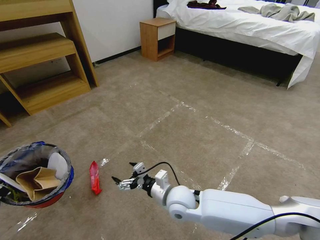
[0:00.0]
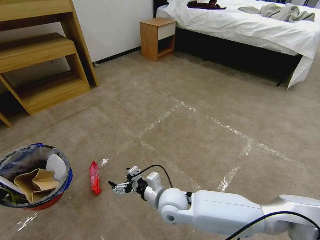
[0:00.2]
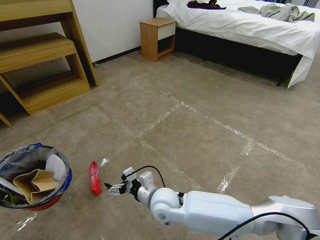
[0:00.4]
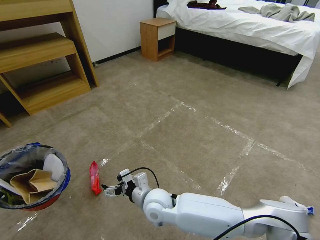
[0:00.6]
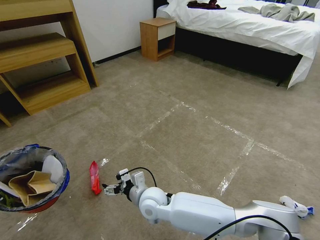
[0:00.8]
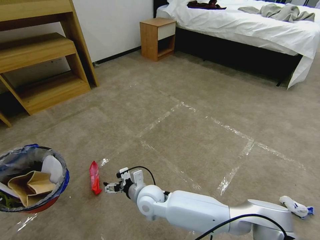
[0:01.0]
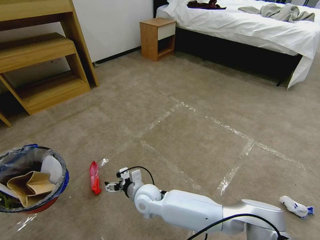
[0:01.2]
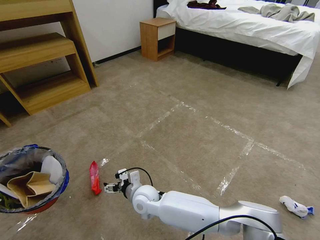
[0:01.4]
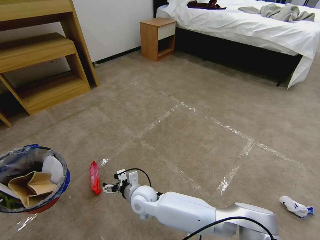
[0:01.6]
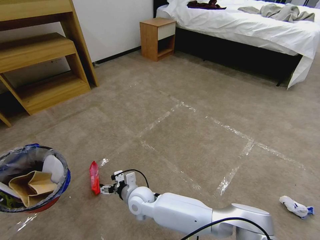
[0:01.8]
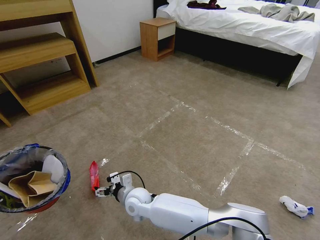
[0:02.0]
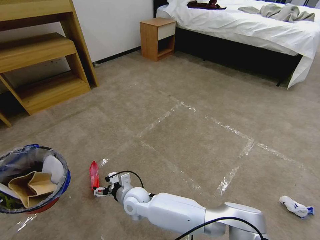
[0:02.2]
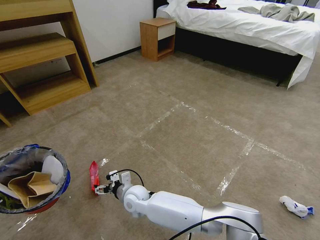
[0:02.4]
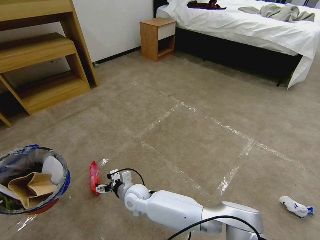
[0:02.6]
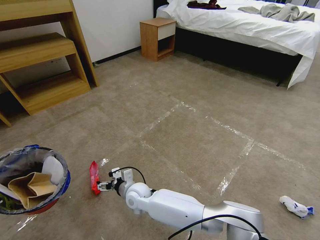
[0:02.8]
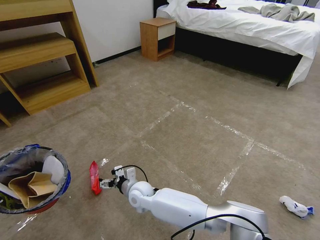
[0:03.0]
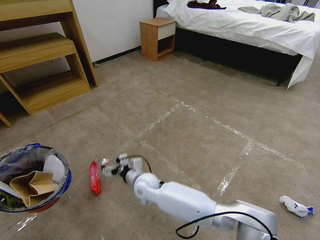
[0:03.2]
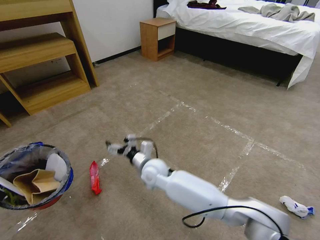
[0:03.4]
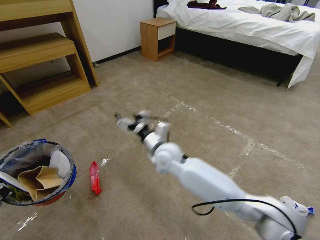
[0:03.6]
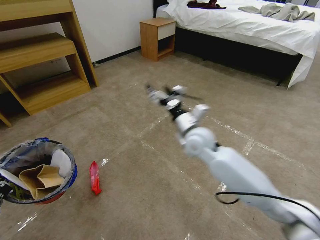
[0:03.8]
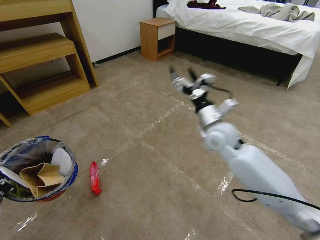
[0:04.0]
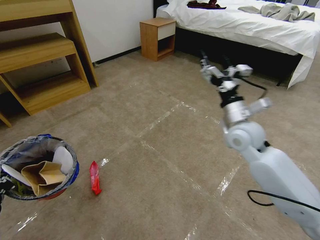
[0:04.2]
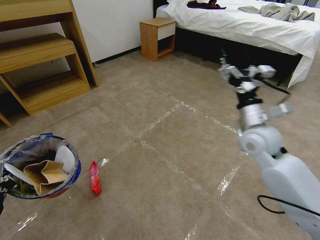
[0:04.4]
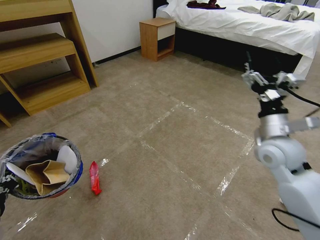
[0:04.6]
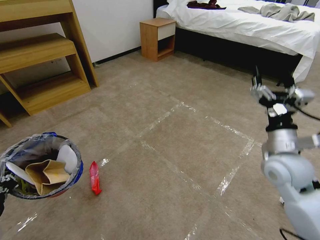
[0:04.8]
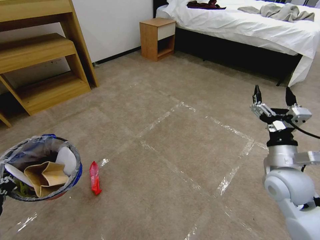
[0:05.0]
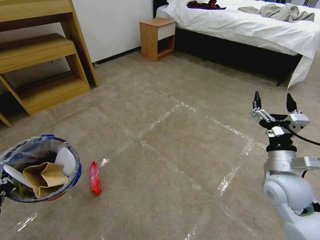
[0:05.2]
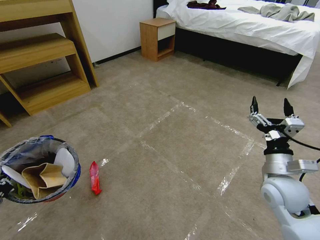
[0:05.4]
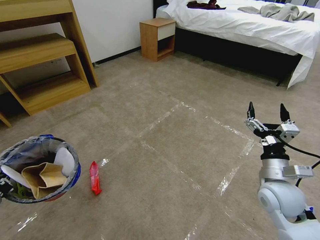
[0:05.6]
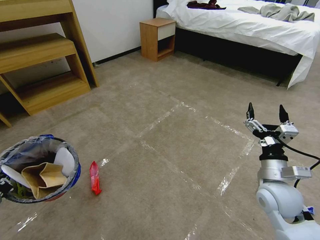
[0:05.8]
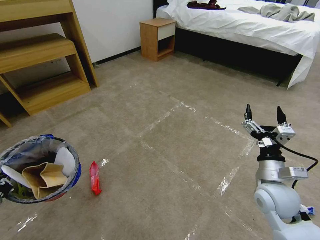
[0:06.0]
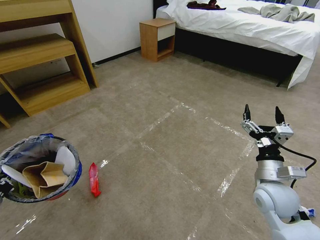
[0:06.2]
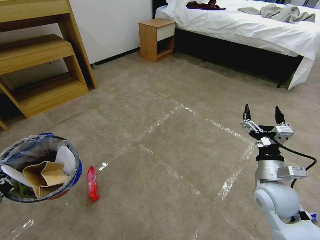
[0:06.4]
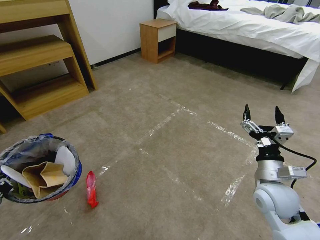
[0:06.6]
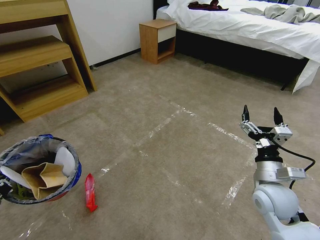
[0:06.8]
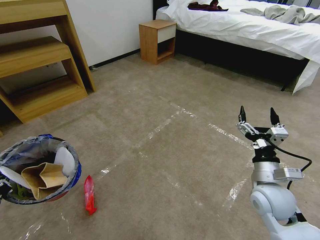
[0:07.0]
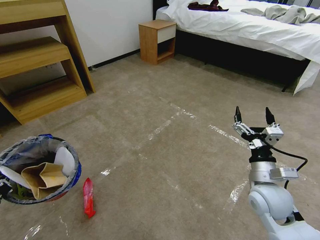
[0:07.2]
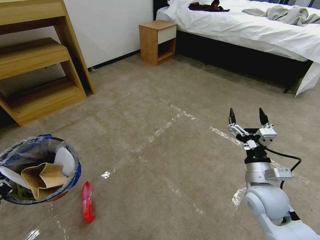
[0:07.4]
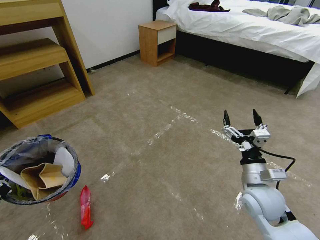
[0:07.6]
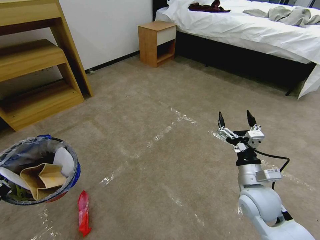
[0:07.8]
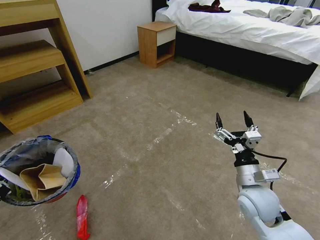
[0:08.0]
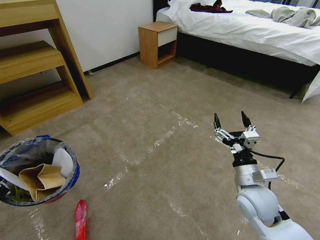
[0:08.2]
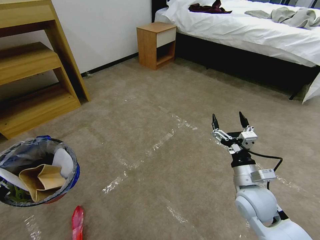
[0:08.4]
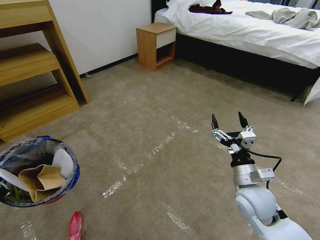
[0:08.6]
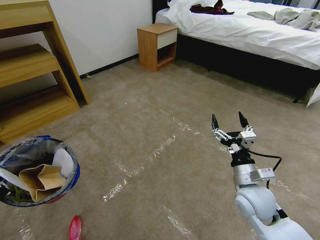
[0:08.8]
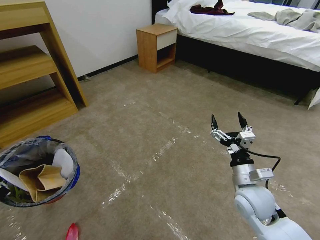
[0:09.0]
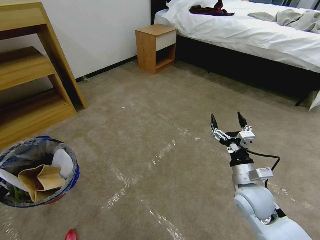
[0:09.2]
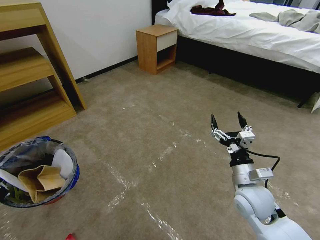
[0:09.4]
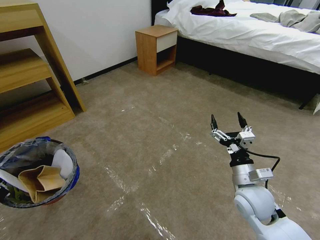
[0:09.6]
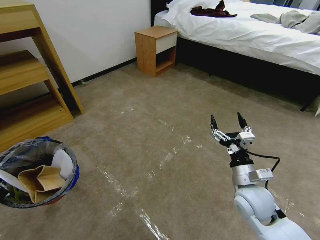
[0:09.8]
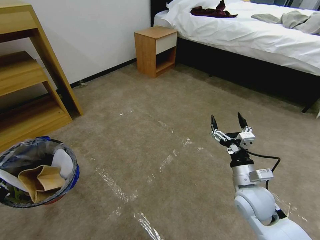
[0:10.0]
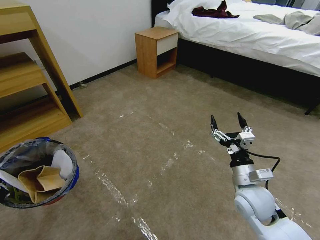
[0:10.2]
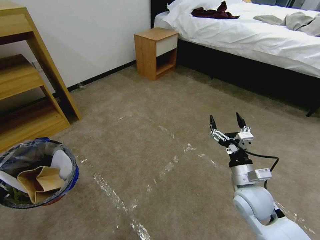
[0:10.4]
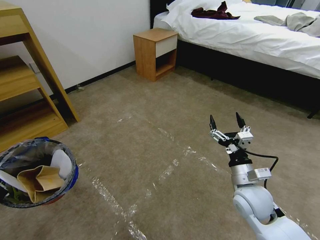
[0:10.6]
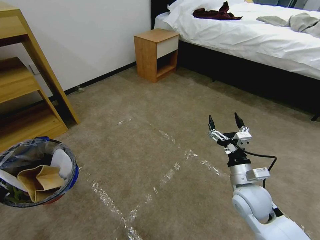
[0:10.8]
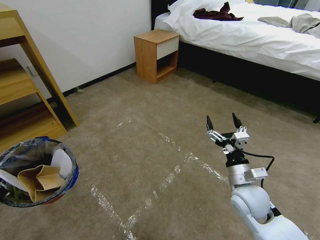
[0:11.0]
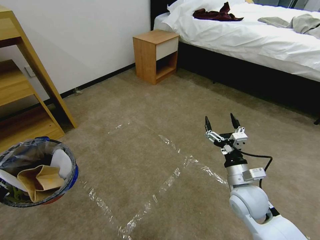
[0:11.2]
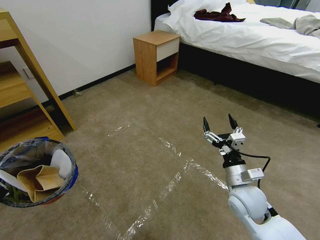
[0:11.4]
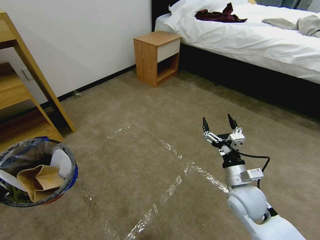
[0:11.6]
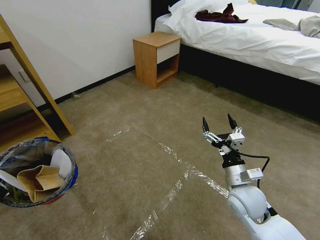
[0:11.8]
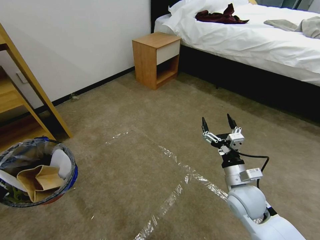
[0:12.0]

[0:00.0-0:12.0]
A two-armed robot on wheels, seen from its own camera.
Task of the whole recording: Pick up the trash bin and place the garbage on the floor into it.
0:00.0 to 0:01.6: The right gripper moves to the left and downward, approximately 15 cm.
0:01.6 to 0:03.0: The grippers stay close to where they were, moving slightly.
0:03.0 to 0:04.4: The right gripper moves to the right and upward, some 50 cm.
0:04.4 to 0:06.0: The right gripper heads backward and downward, covering about 15 cm.

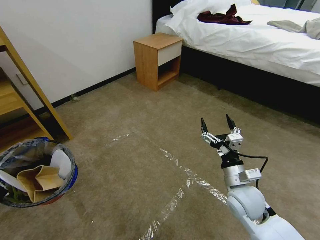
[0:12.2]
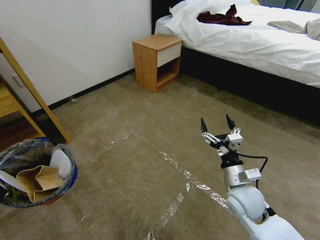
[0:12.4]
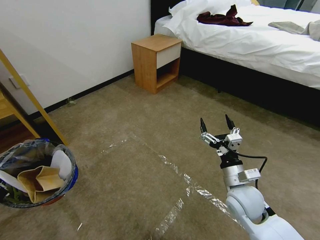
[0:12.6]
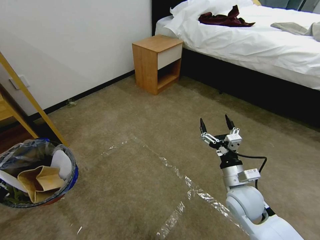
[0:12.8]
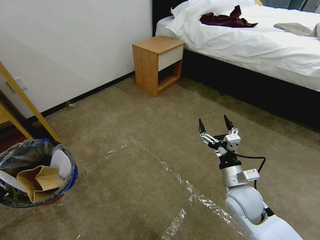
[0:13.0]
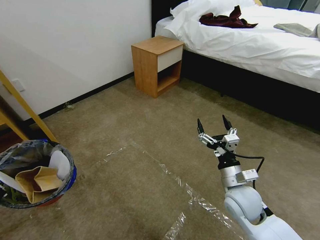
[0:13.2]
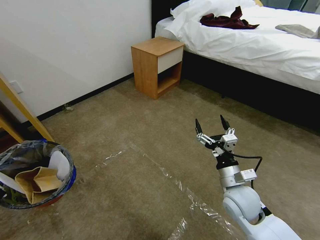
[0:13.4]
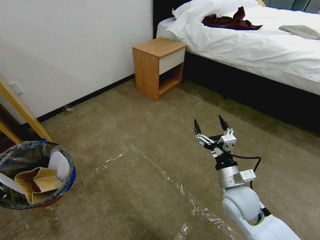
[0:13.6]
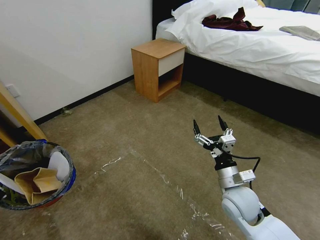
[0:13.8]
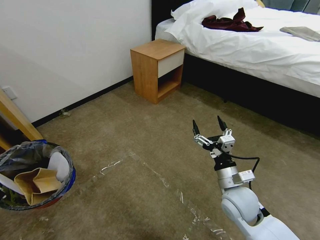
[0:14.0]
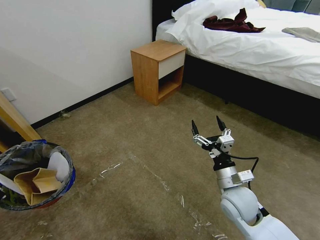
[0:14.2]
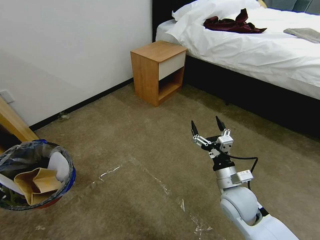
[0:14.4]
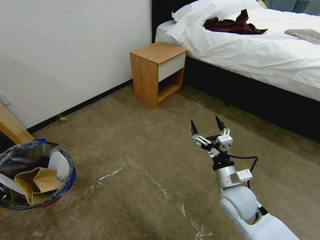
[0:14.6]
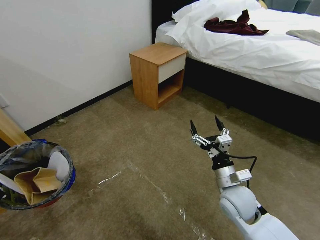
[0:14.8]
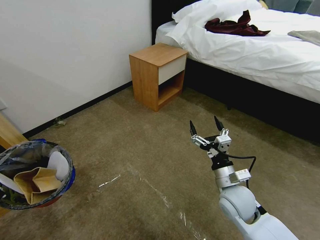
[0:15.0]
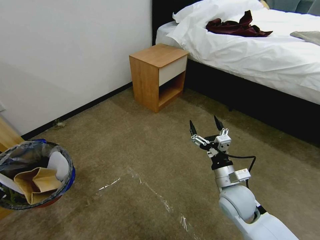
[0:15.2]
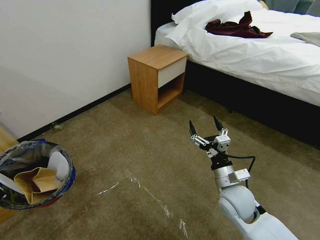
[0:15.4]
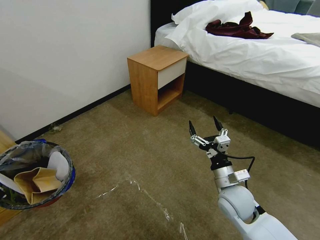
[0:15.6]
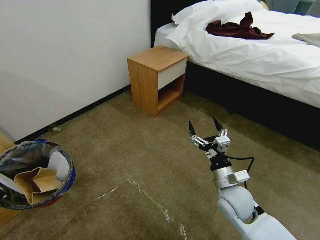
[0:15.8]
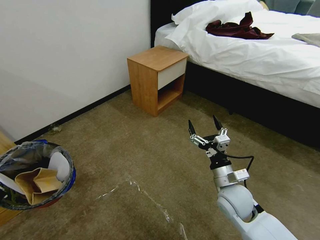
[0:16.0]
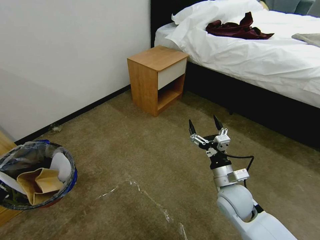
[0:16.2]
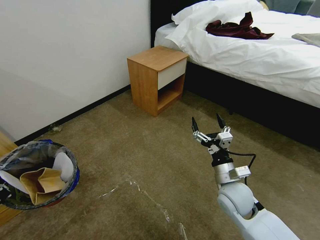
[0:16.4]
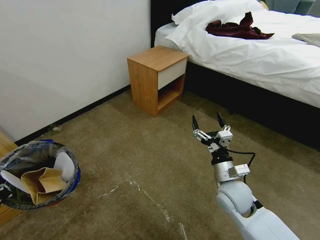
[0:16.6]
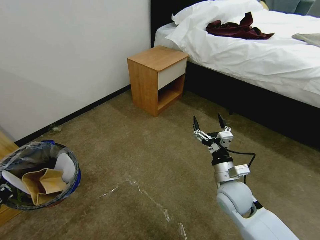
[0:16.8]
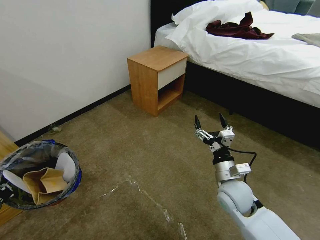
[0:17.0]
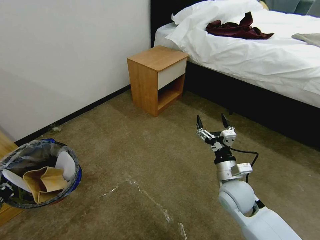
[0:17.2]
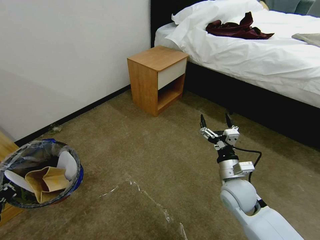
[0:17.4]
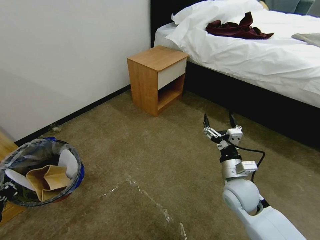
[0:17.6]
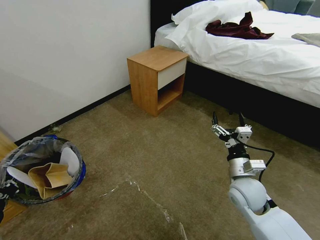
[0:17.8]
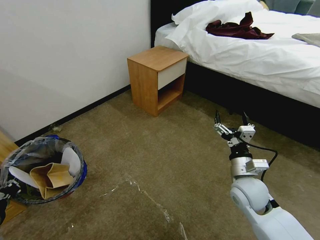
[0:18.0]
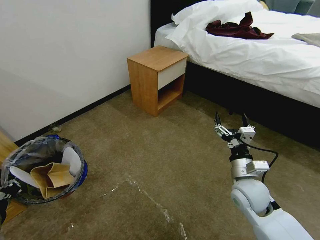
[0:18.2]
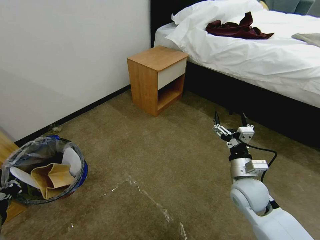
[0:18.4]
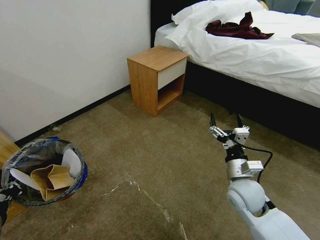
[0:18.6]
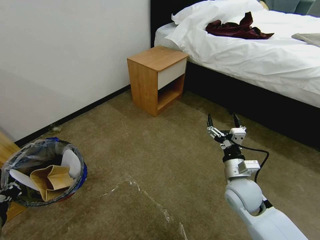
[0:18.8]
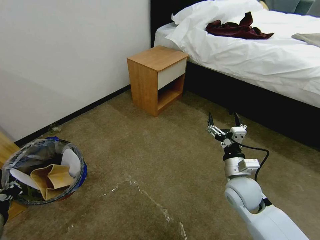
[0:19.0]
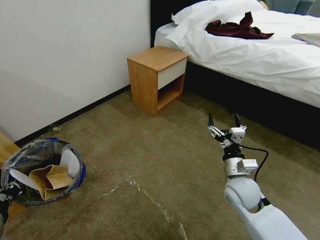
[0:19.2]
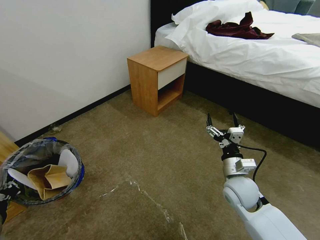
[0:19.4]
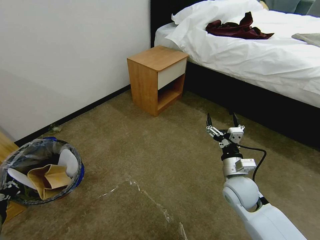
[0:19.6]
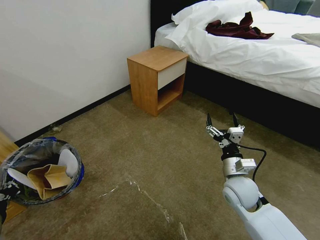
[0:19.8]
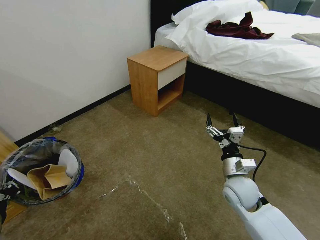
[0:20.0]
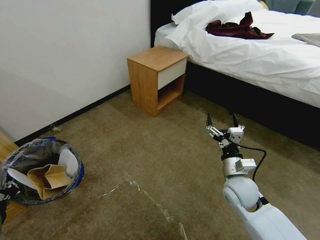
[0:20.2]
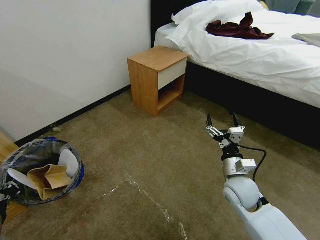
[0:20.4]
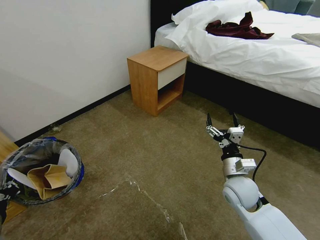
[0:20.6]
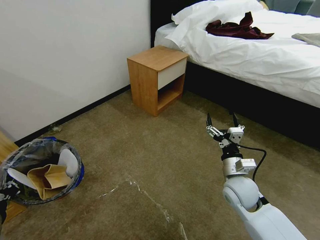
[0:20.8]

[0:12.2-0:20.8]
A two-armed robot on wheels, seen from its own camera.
Task of the whole recording: Pick up the trash bin and place the garbage on the floor into it.
0:15.0 to 0:19.4: The grippers make only small movements.
0:19.4 to 0:20.8: Neither gripper changes place.
